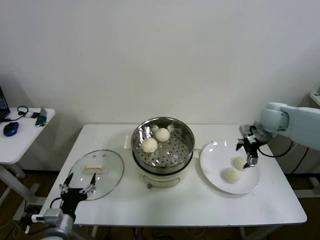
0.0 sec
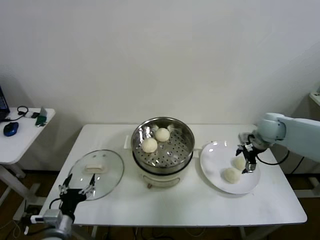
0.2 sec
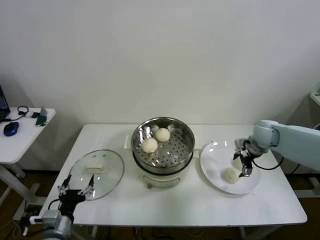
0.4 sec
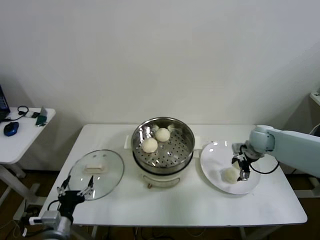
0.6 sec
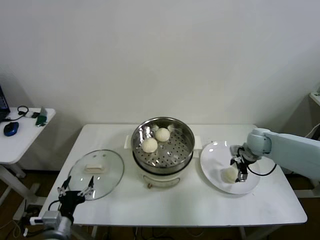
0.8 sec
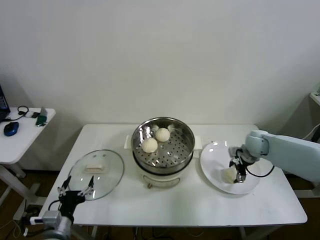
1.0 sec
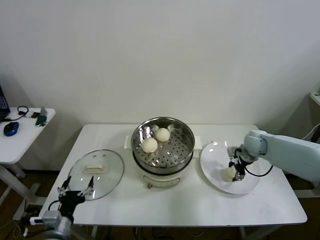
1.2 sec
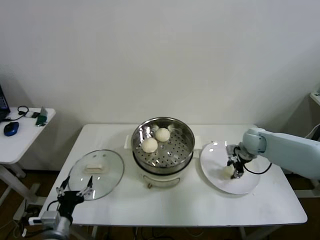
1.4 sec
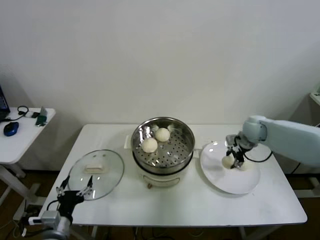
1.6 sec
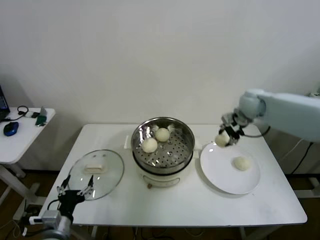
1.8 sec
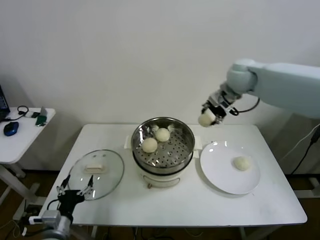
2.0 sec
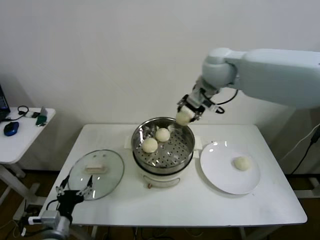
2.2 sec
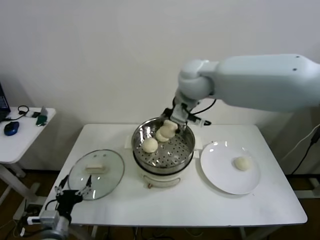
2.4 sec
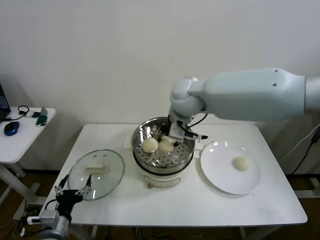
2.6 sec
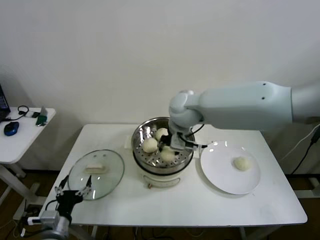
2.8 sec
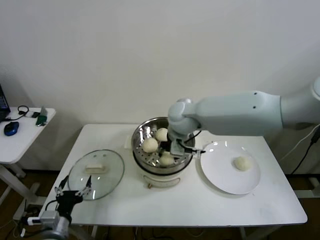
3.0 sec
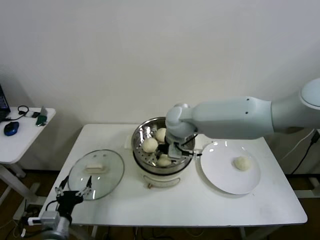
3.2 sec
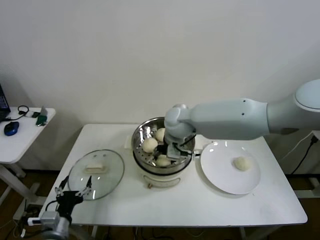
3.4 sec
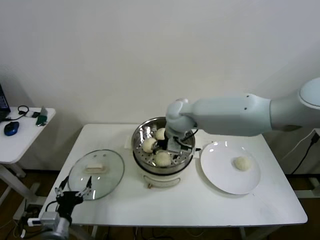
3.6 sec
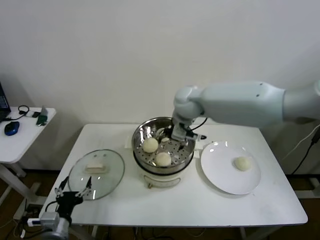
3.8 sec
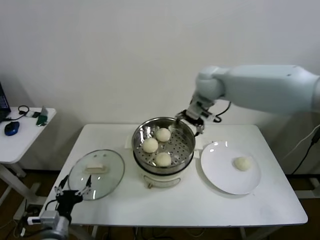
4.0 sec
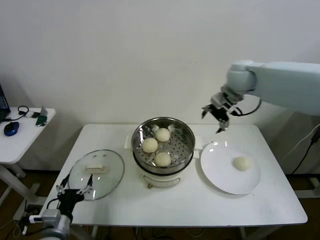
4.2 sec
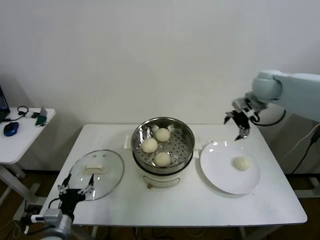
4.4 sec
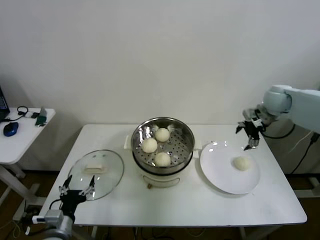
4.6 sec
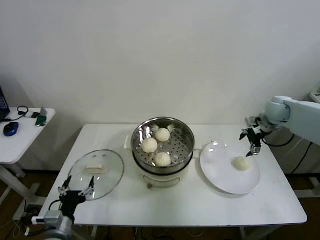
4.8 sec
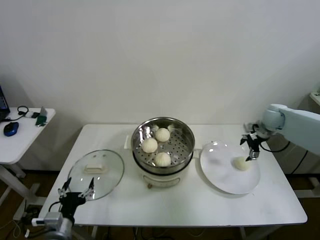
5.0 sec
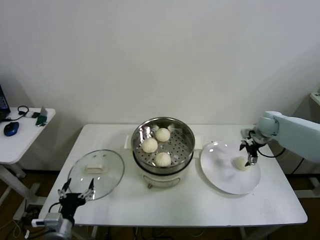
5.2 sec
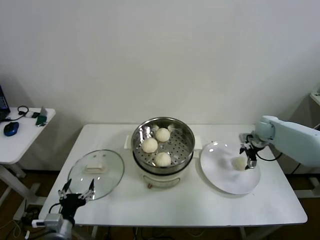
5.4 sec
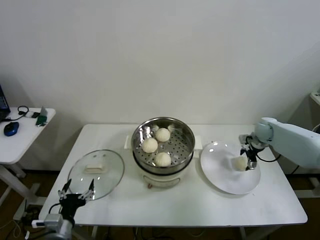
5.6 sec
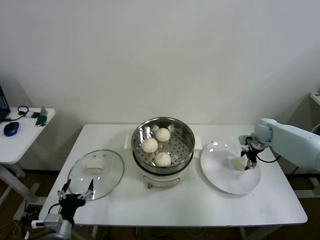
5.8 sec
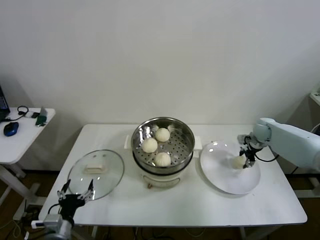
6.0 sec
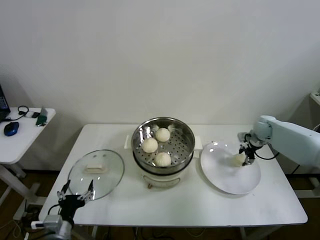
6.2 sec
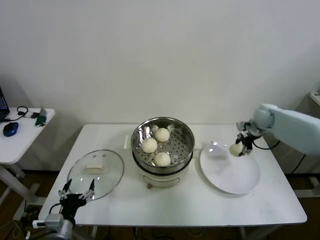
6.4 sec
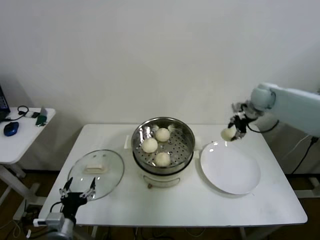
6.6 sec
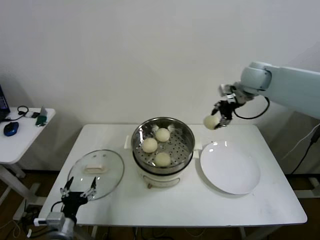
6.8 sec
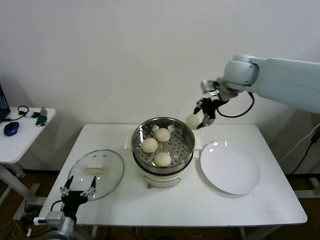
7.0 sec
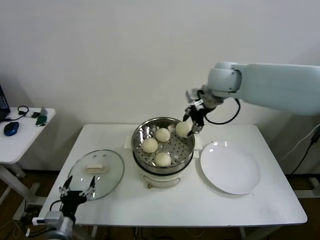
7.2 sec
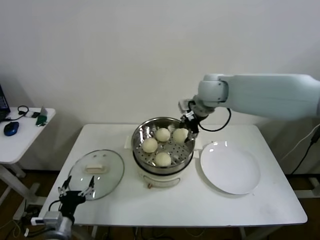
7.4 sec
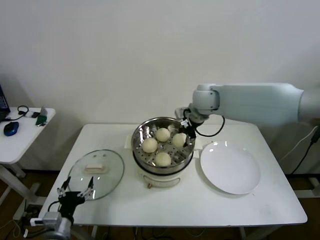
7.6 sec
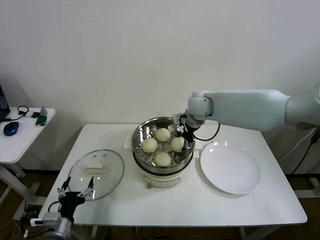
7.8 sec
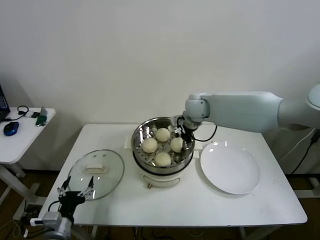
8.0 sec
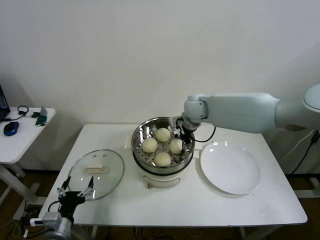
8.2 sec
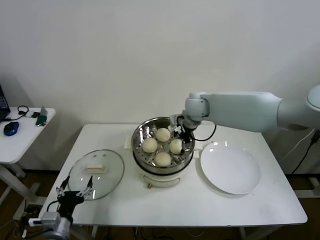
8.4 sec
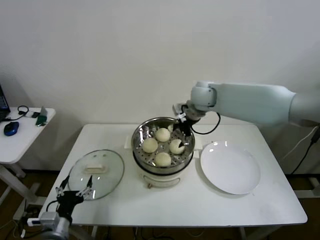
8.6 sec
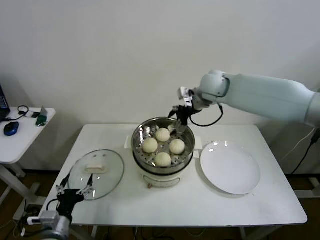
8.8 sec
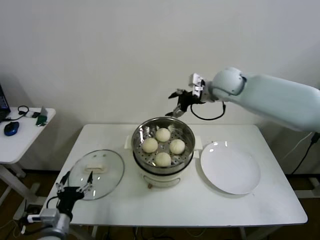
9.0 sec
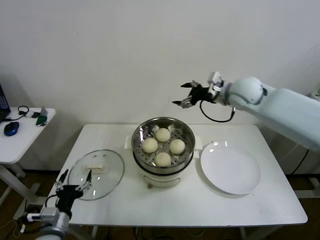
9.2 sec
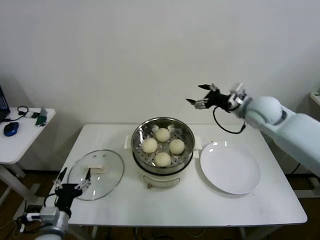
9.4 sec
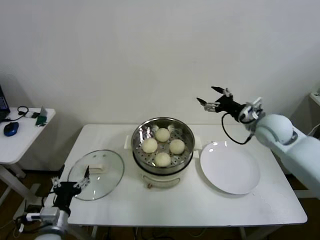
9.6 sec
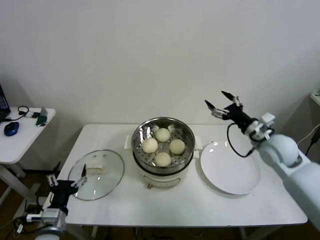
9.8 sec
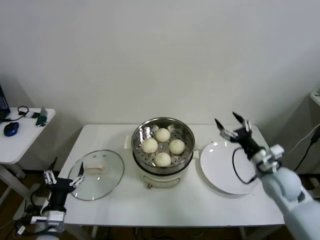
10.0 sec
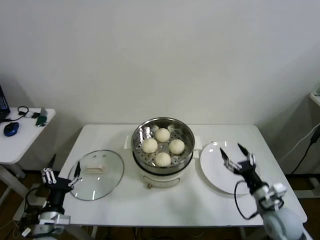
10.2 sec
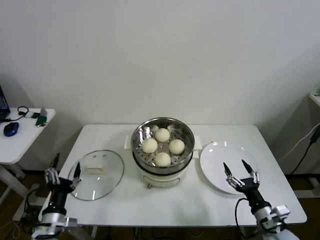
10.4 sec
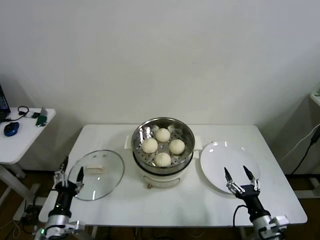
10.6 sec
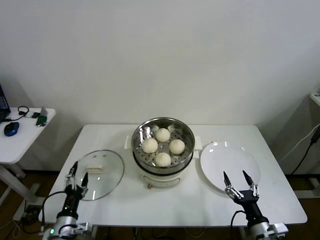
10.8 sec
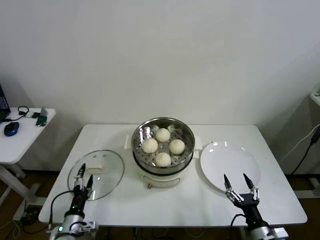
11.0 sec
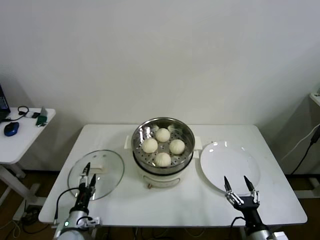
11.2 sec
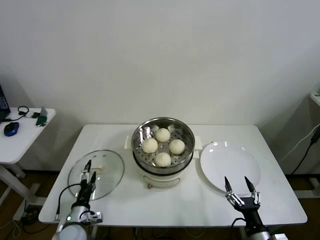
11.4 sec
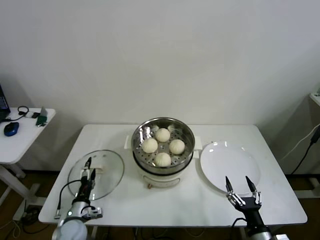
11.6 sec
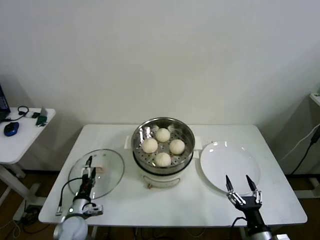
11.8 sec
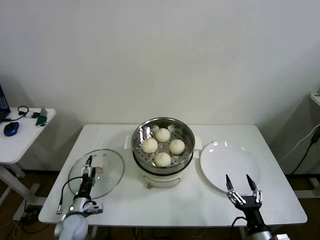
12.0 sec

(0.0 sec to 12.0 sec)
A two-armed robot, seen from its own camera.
Step, 1.4 sec - 3.4 sec: Place the baozi on the steamer with right gripper.
Step, 3.8 sec - 6.0 sec: Grasp the baozi in the plate with right gripper.
Step, 6.2 sec - 8.2 sec: Place the baozi on the steamer with right gripper.
0.0 sec - 1.6 sec: The right gripper moves approximately 10 cm downward and comes back, and closes up.
1.6 sec - 3.0 sec: The right gripper goes approximately 30 cm to the left.
3.0 sec - 4.4 sec: The right gripper travels to the right by some 30 cm, and opens.
4.4 sec - 6.0 sec: The right gripper heads downward, covering about 20 cm, and closes its fingers.
6.0 sec - 7.6 sec: The right gripper heads to the left and upward, covering roughly 35 cm.
7.6 sec - 9.0 sec: The right gripper goes some 5 cm to the right, and opens.
9.0 sec - 10.4 sec: The right gripper heads backward and downward, covering about 50 cm.
10.4 sec - 12.0 sec: The right gripper goes roughly 5 cm backward. The left gripper travels downward and forward by approximately 15 cm.

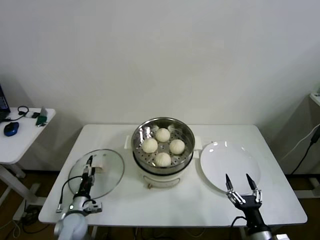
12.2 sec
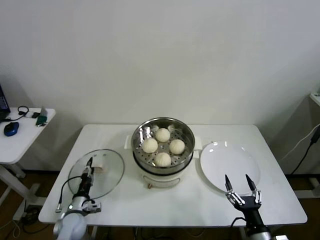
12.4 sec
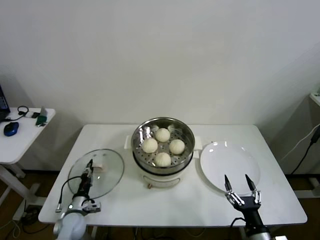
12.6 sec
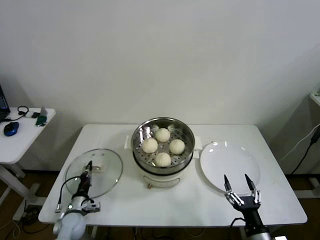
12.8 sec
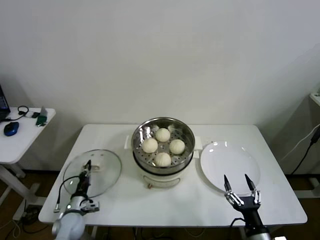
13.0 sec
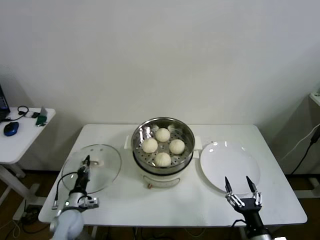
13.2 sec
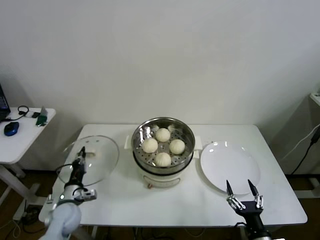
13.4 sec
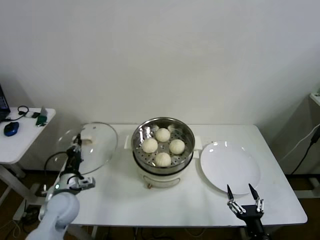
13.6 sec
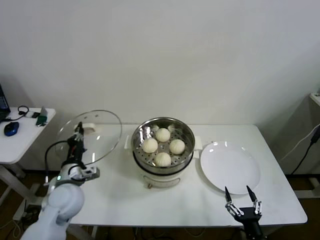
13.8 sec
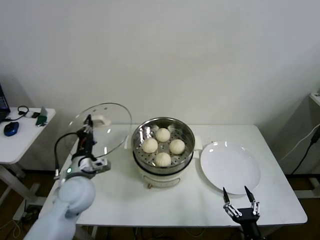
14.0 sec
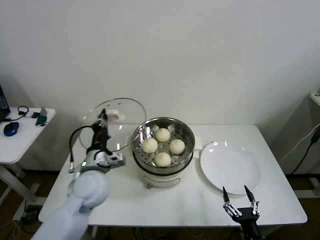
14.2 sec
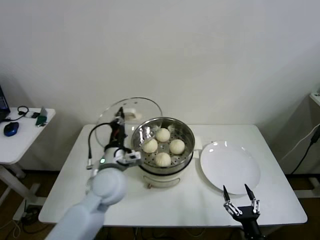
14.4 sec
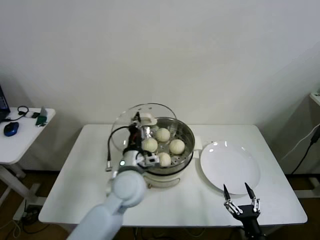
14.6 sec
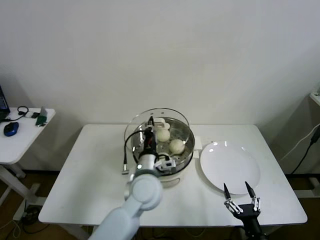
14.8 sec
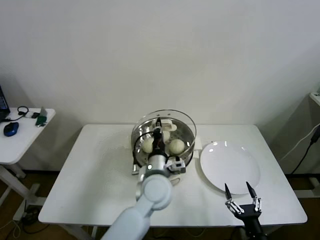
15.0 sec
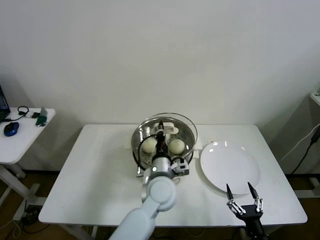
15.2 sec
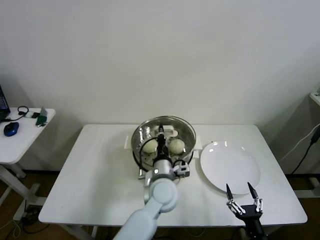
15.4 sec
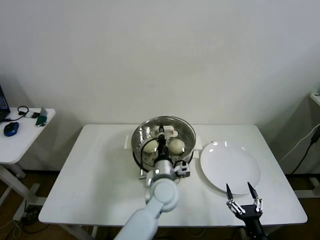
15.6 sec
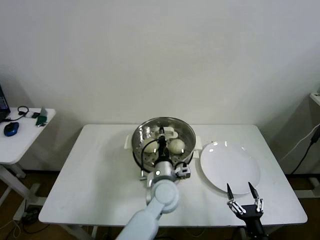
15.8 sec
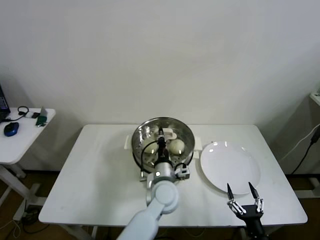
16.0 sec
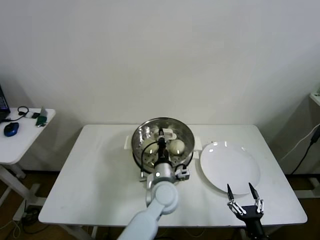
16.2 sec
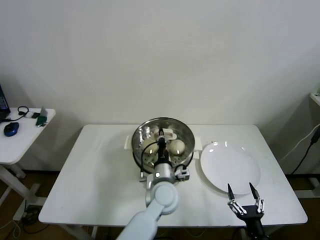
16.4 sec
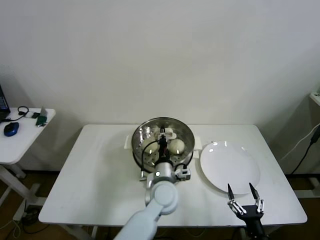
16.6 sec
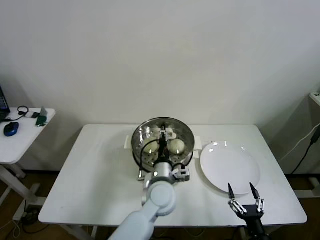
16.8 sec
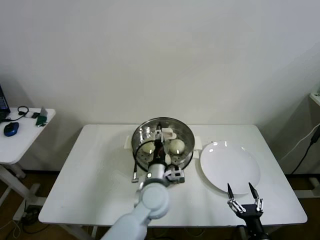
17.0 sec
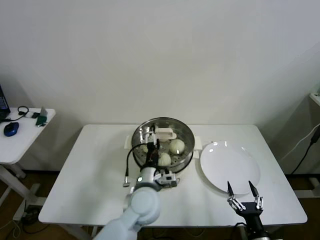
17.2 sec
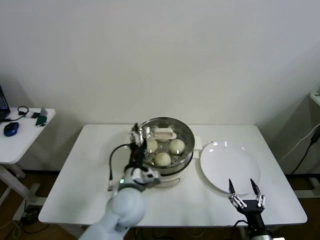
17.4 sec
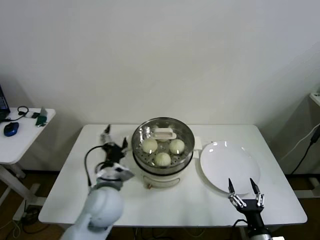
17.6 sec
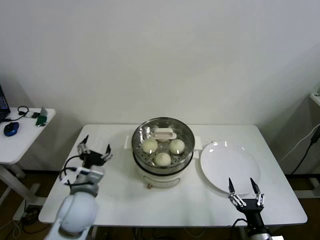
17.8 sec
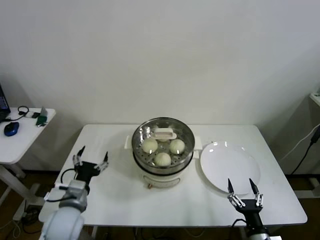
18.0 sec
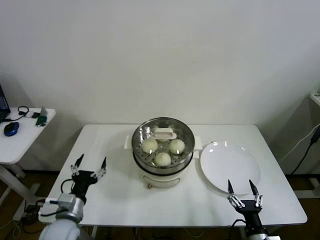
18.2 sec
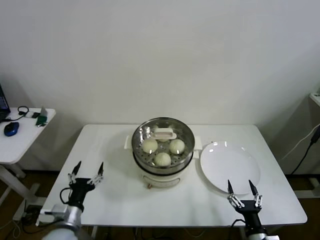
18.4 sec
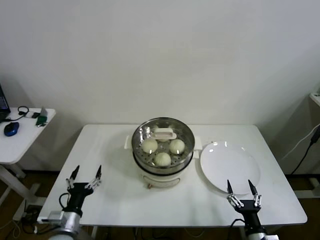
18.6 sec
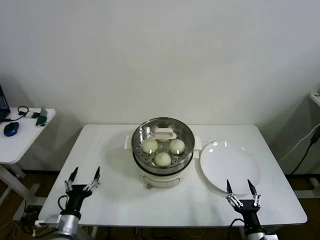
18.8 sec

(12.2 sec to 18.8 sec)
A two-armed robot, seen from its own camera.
Step, 13.0 sec - 16.4 sec: Place the pot lid on the steamer with left gripper.
12.2 sec - 13.8 sec: The left gripper is displaced upward by approximately 20 cm, and closes its fingers.
13.8 sec - 15.4 sec: The left gripper heads to the right, covering some 30 cm.
15.4 sec - 17.2 sec: The left gripper opens up.
17.2 sec - 18.8 sec: The left gripper heads to the left and backward, covering approximately 30 cm.
